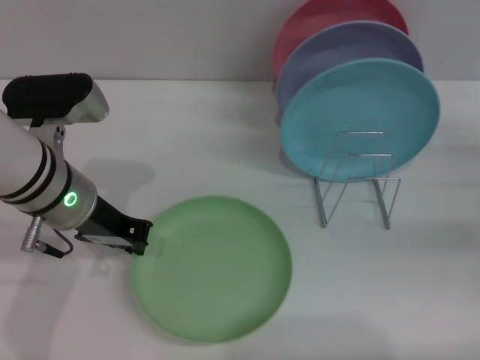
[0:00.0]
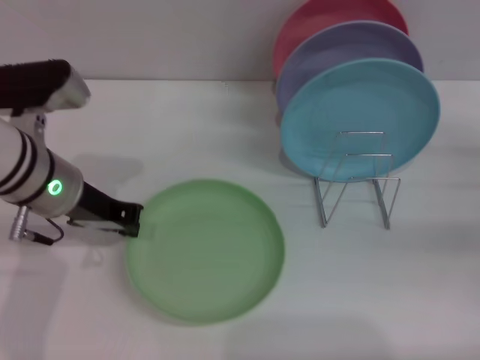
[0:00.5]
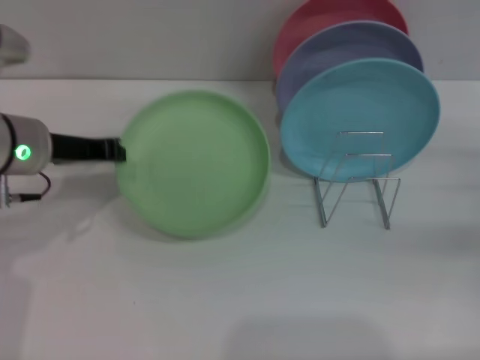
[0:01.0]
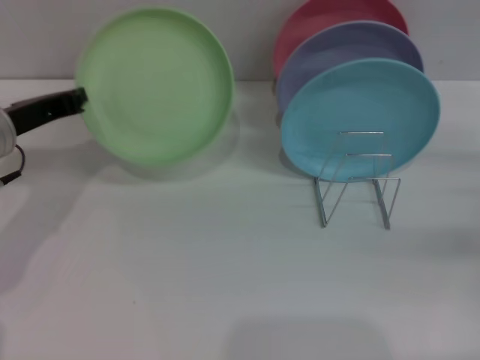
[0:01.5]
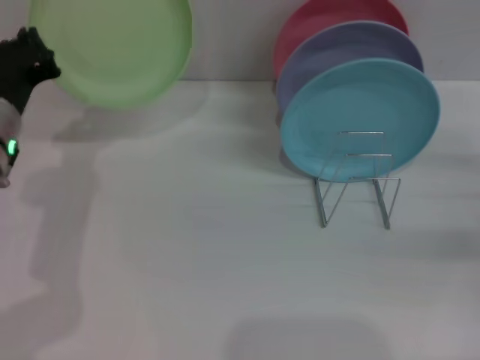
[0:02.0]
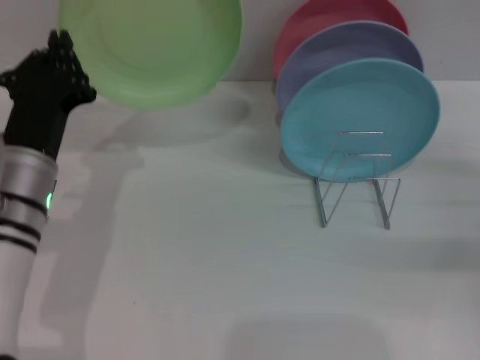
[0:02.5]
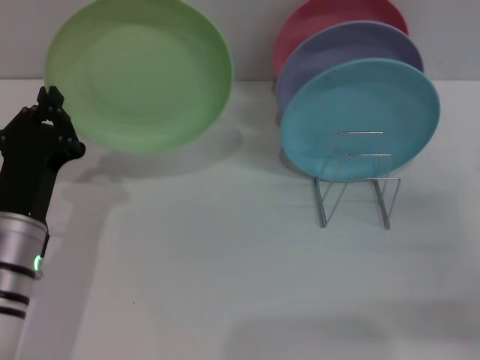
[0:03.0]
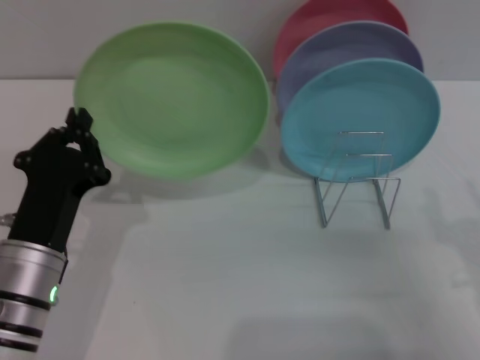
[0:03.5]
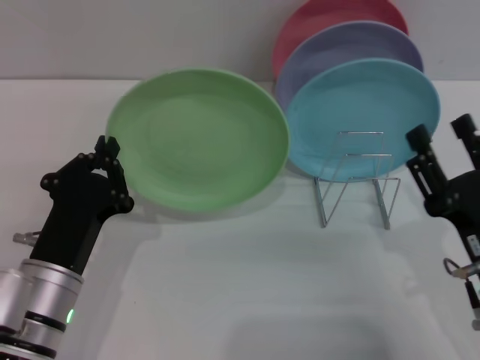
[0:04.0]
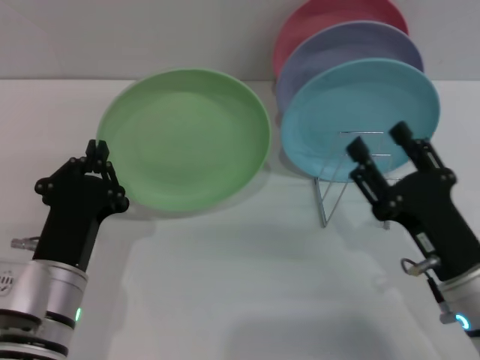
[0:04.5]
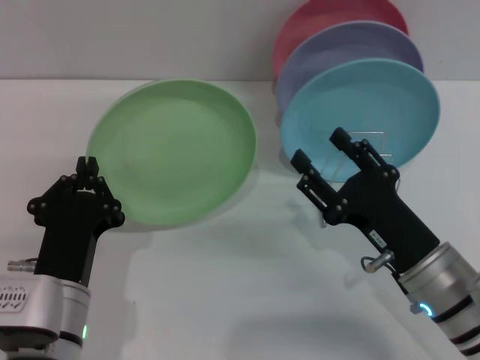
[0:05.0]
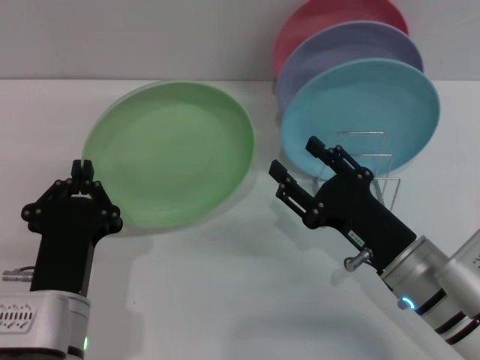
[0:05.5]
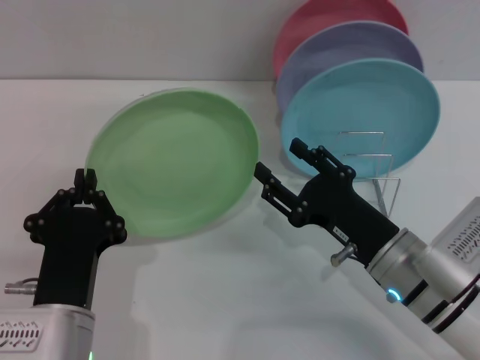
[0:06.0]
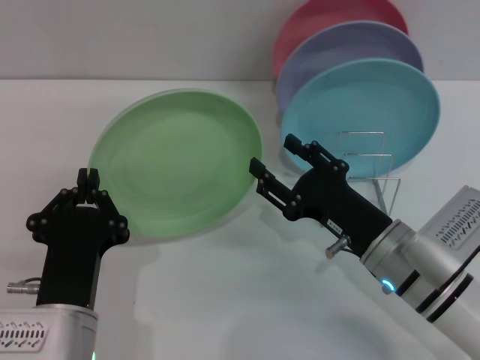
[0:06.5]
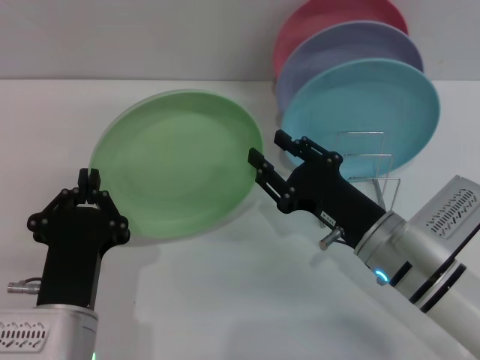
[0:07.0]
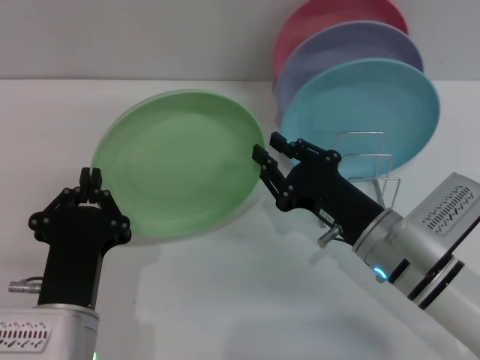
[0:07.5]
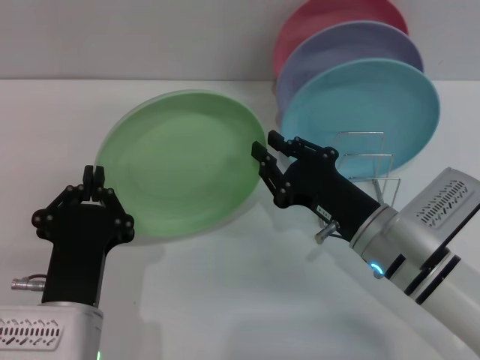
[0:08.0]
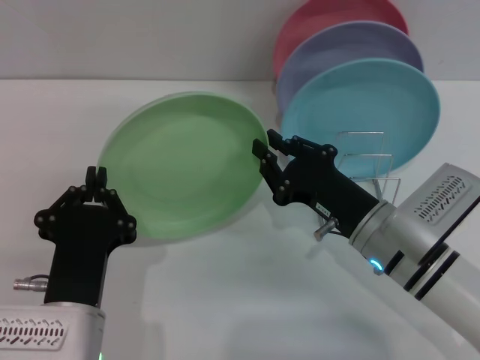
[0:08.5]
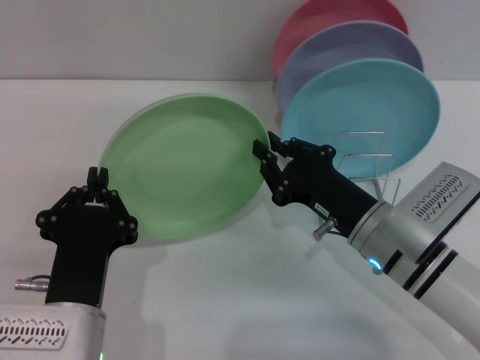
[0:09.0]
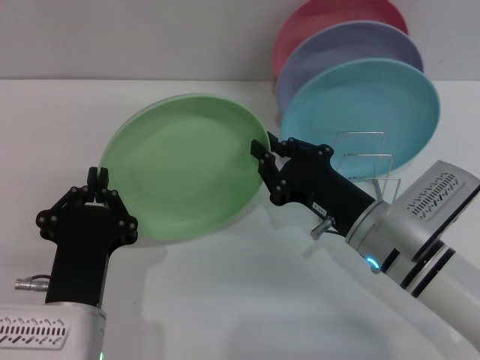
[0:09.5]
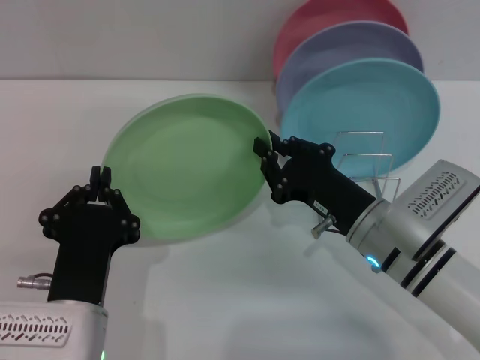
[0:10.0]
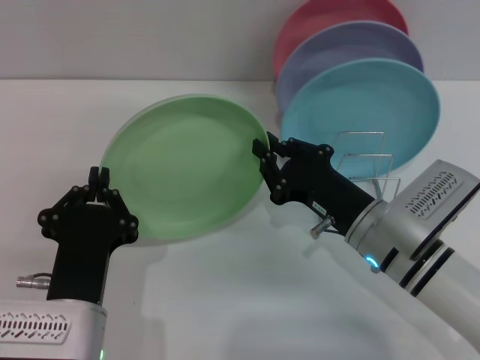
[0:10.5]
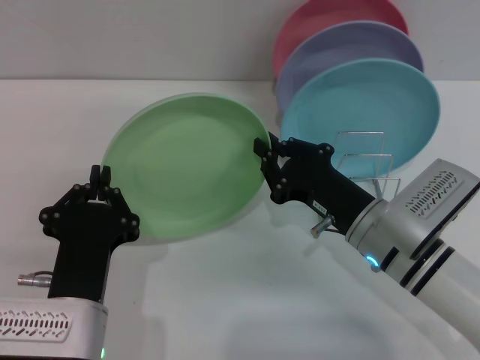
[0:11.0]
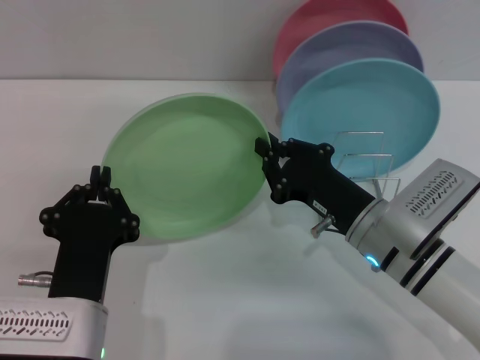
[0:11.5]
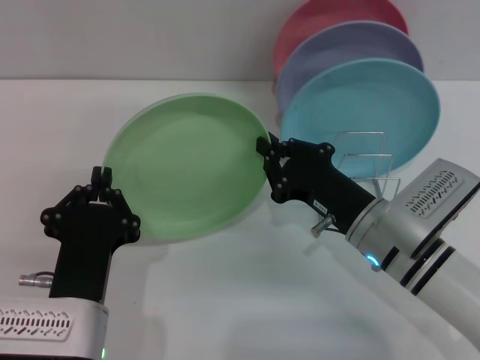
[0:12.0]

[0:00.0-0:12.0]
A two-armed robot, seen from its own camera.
Task of the whole recording: Grip the plate with one hand, pass it to the other, then set it on the shelf.
0:02.0 to 0:04.0: The left gripper travels backward and downward by approximately 15 cm. The right gripper moves to the left and backward, approximately 20 cm.
0:04.0 to 0:06.0: The right gripper heads to the left and forward, covering approximately 10 cm. The left gripper ends up some 5 cm from where it was.
0:06.0 to 0:08.0: The right gripper closes its fingers.
0:08.0 to 0:12.0: Both grippers stay about where they are.

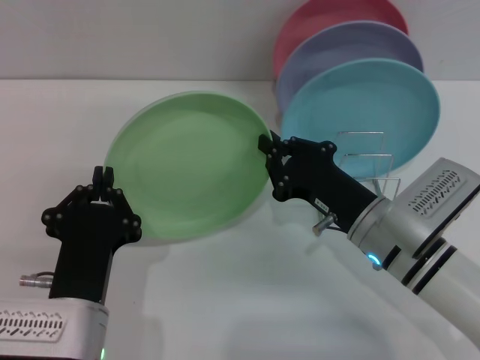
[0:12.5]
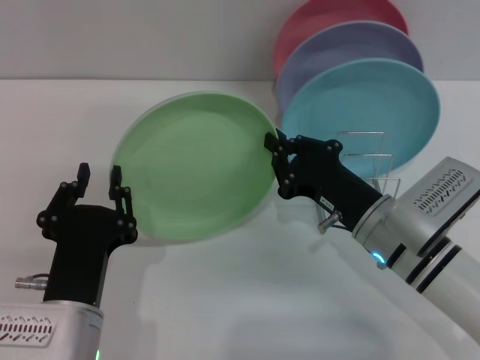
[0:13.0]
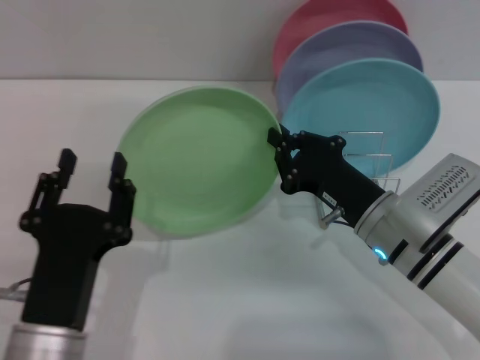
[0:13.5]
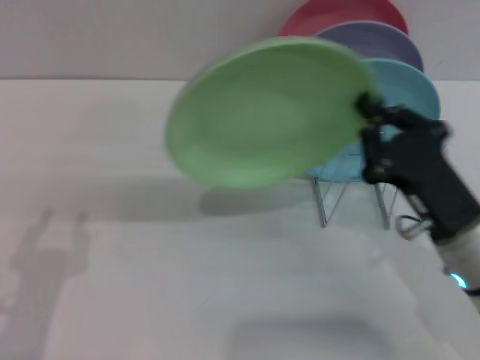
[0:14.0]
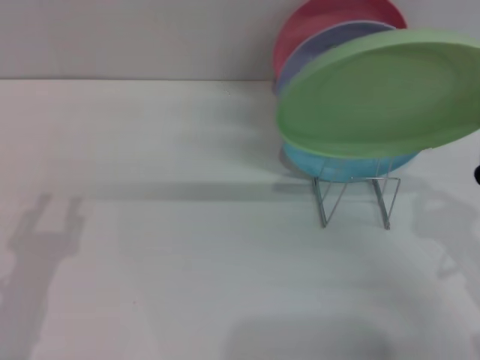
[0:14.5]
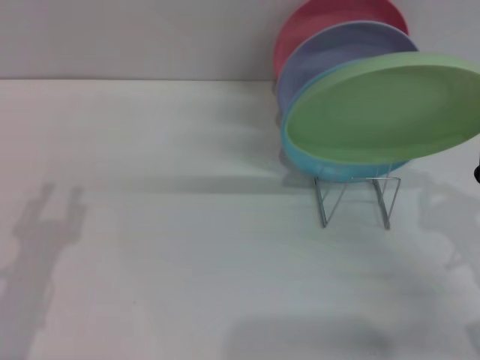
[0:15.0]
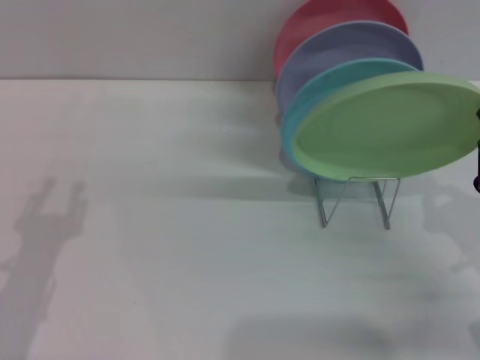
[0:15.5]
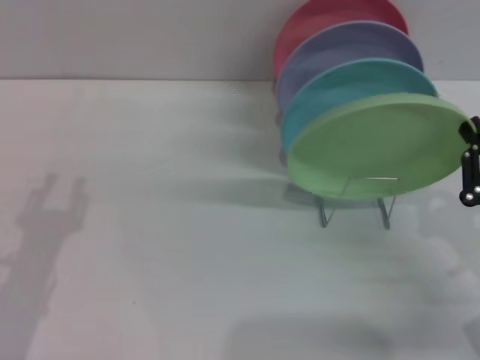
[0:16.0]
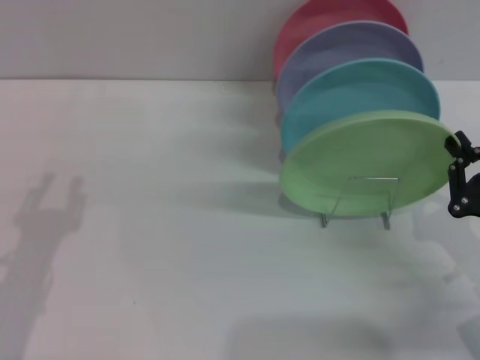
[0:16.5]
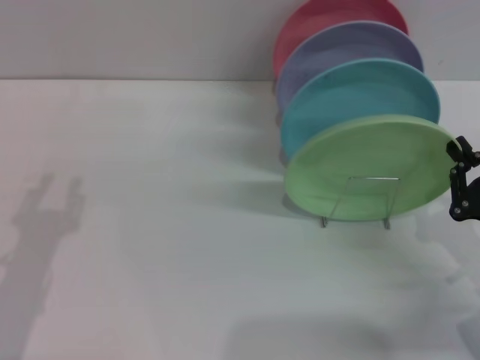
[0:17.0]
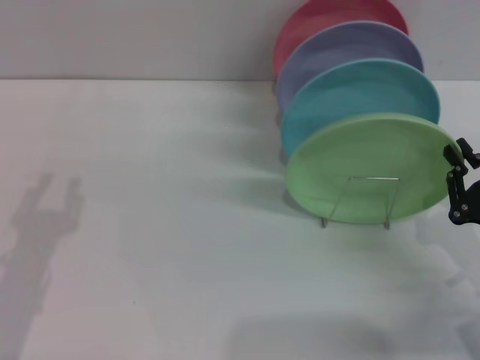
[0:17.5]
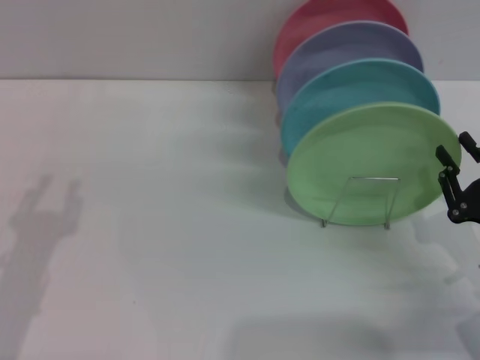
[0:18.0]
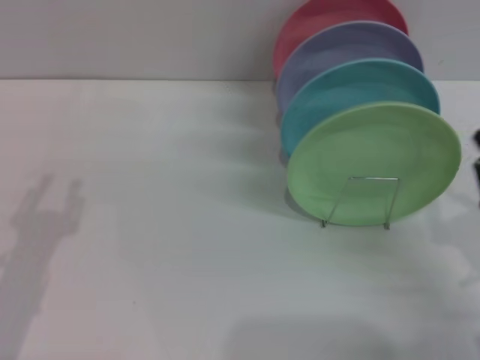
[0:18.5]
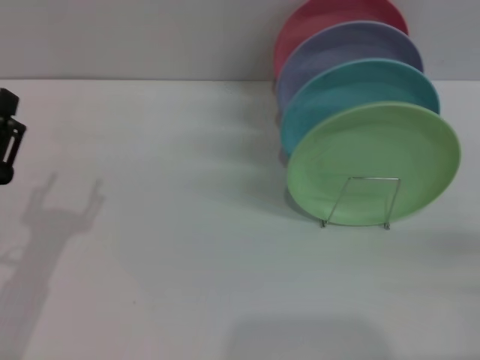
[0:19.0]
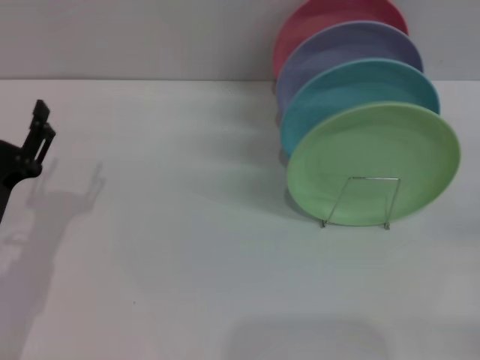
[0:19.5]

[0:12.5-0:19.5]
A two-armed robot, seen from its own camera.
Task of the whole recording: Grip the plate with one hand, pass it to the other, then set it on the shelf.
Step, 0:14.0 to 0:18.5: Place the plate on the shelf with the right gripper.
0:12.5 to 0:14.5: The right gripper heads to the right and backward, covering about 15 cm, while the left gripper is displaced to the left by approximately 10 cm, and opens up.
0:14.5 to 0:16.0: The grippers move only a little.
0:16.0 to 0:17.5: The grippers stay close to where they were, moving slightly.
0:17.5 to 0:19.5: The right gripper shifts approximately 10 cm to the right, and opens.

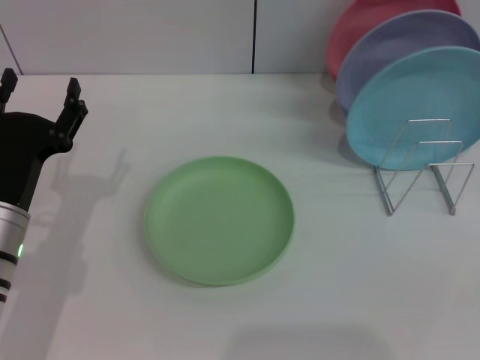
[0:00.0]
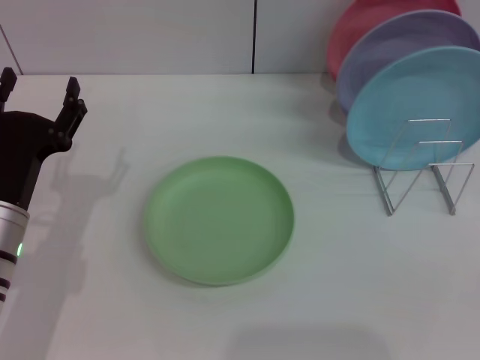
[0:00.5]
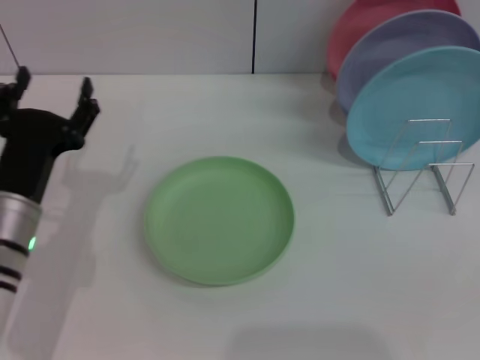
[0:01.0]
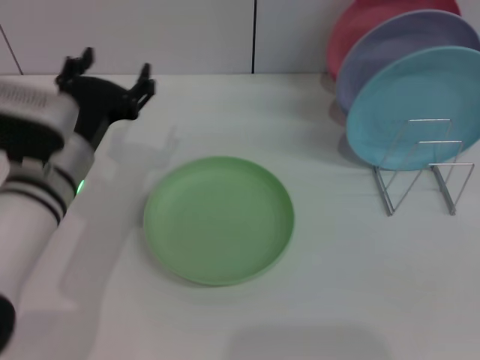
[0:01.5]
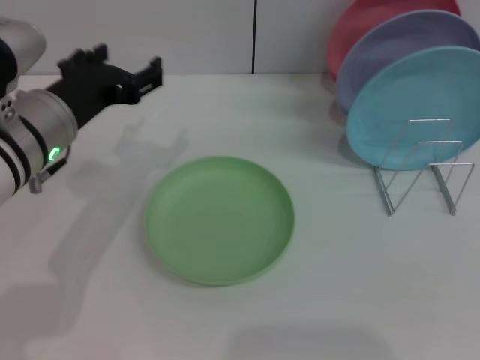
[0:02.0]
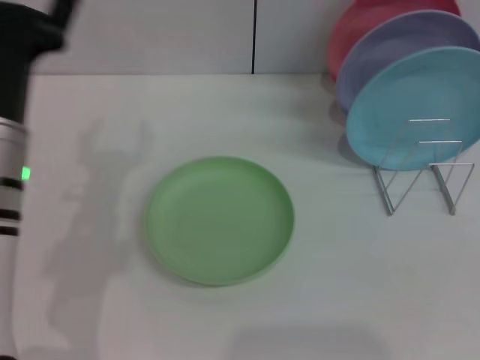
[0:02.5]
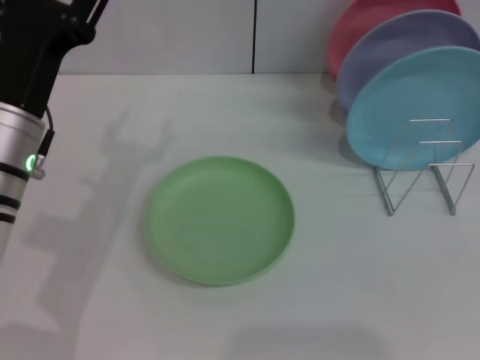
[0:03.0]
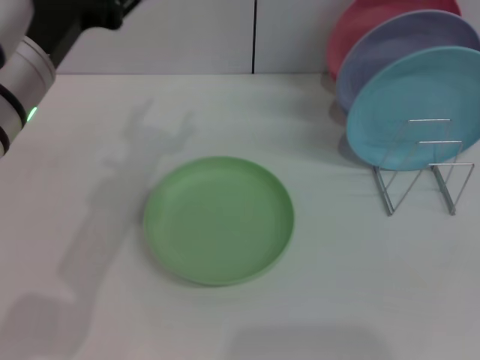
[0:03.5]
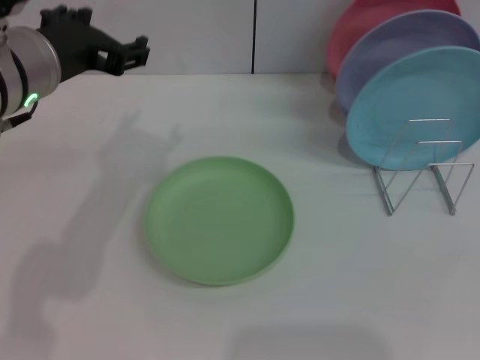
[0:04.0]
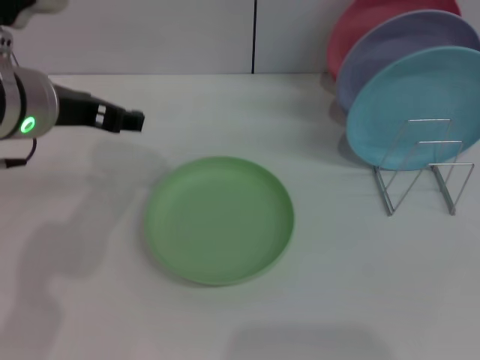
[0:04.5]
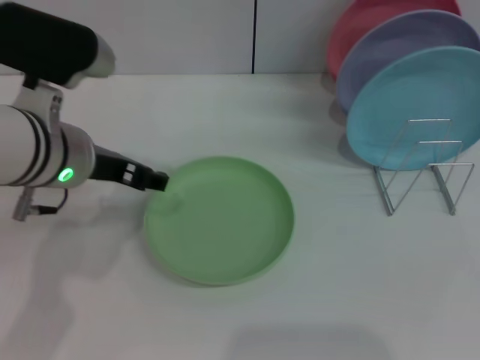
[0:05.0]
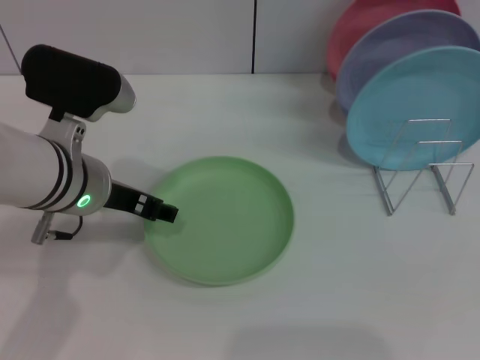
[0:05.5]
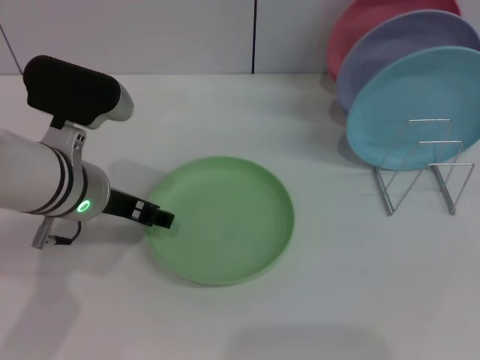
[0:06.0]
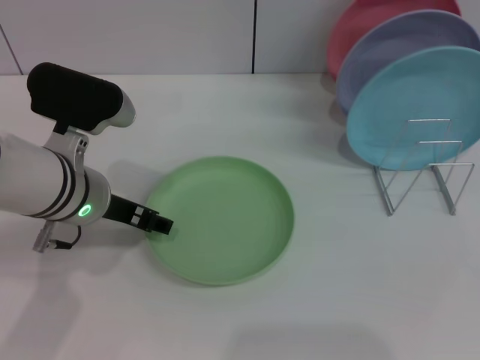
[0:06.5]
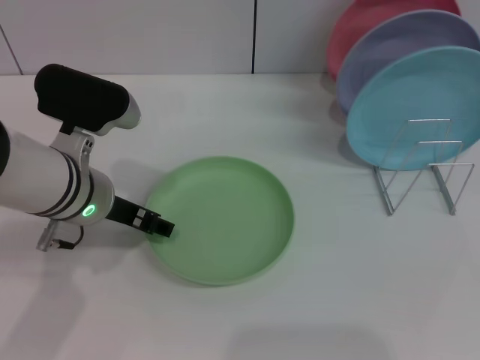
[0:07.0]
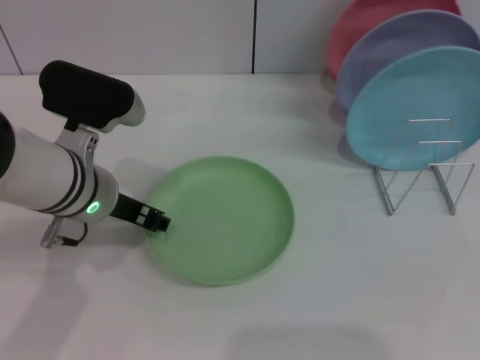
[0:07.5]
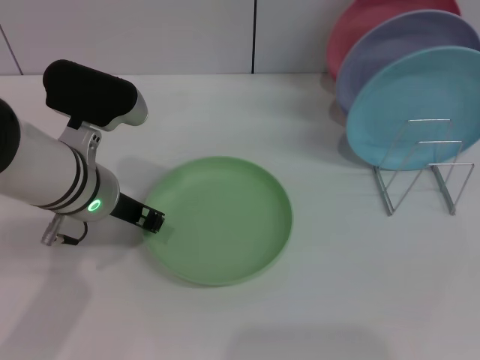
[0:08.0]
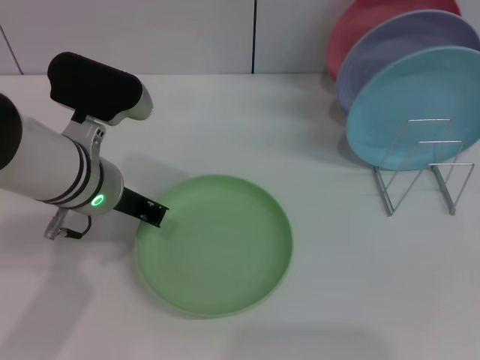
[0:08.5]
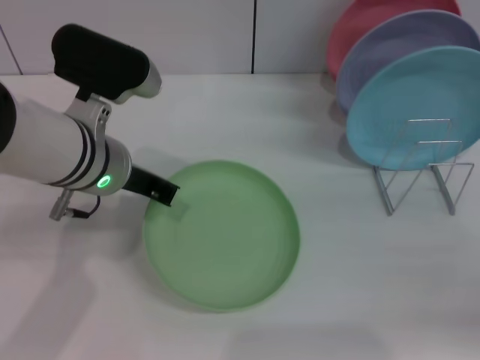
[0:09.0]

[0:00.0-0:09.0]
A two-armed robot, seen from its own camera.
Task of the whole recording: Grip the plate with one hand, pass it to the other, then set it on the shelf.
0:00.0 to 0:02.0: The left gripper is displaced upward and forward by roughly 10 cm.
0:02.0 to 0:04.5: The left gripper moves upward, roughly 5 cm.
0:04.5 to 0:07.0: The left gripper is displaced downward by about 10 cm.
0:07.0 to 0:09.0: The right gripper moves upward and forward, about 15 cm; the left gripper closes.
